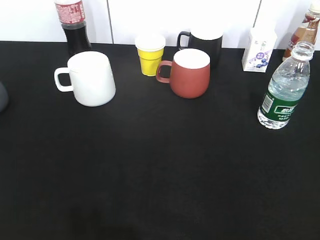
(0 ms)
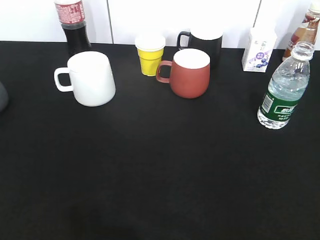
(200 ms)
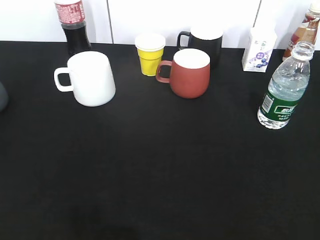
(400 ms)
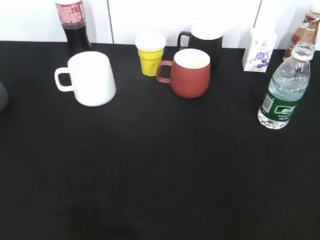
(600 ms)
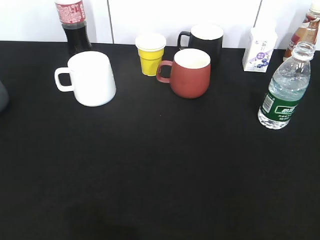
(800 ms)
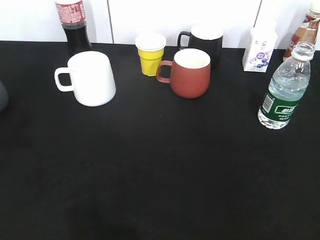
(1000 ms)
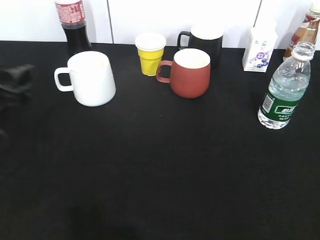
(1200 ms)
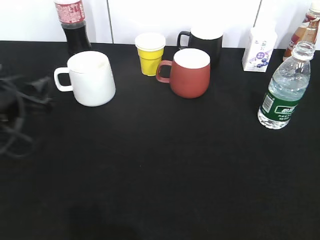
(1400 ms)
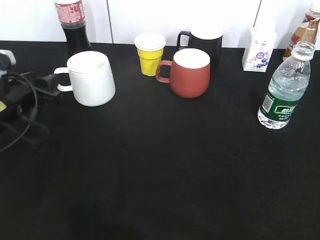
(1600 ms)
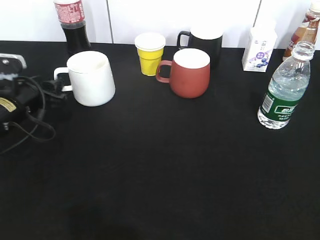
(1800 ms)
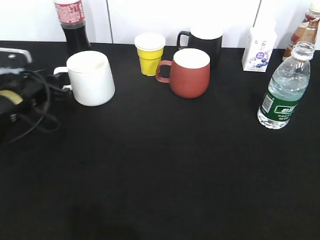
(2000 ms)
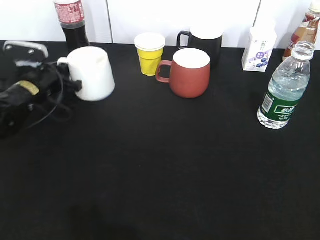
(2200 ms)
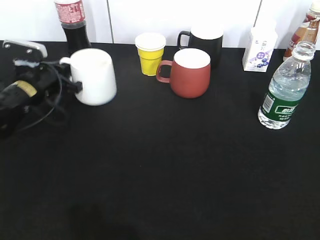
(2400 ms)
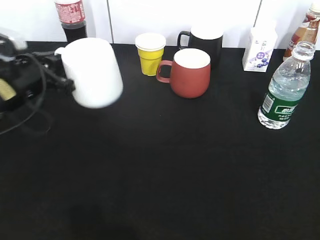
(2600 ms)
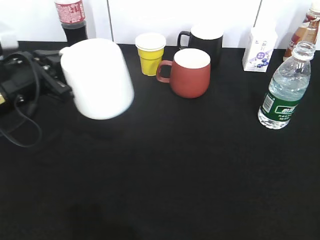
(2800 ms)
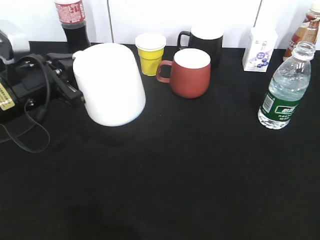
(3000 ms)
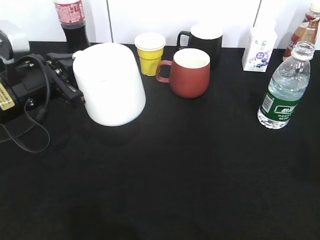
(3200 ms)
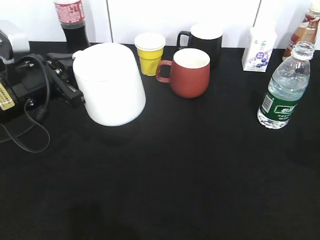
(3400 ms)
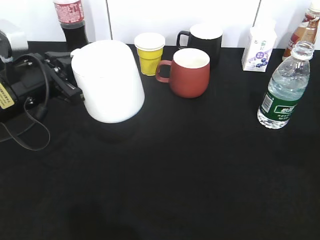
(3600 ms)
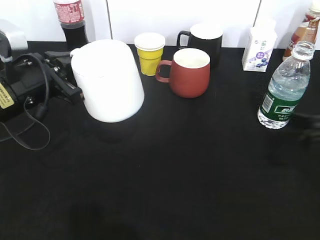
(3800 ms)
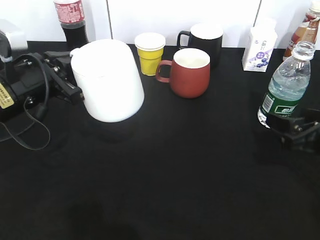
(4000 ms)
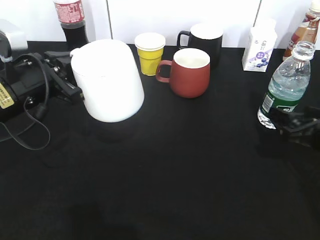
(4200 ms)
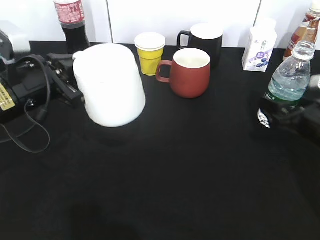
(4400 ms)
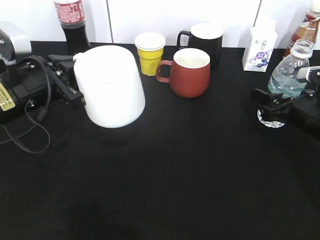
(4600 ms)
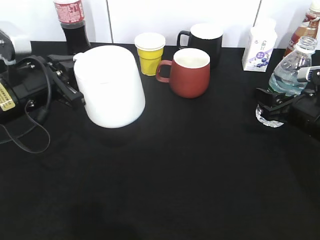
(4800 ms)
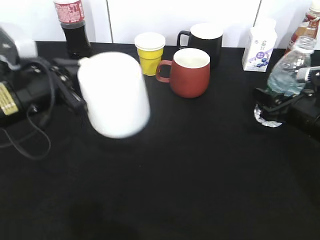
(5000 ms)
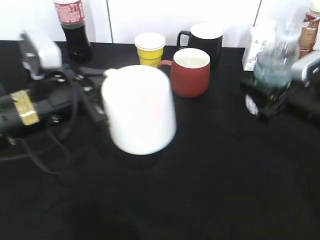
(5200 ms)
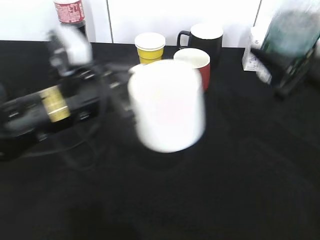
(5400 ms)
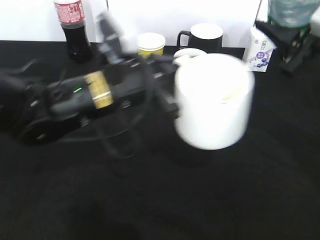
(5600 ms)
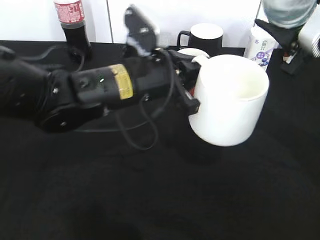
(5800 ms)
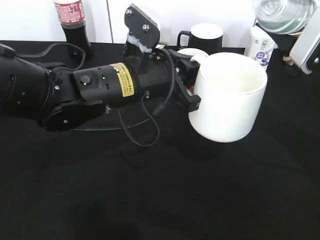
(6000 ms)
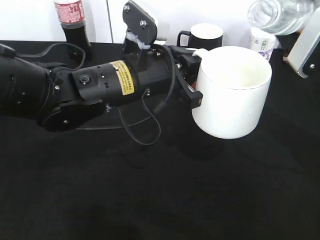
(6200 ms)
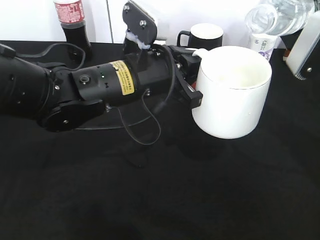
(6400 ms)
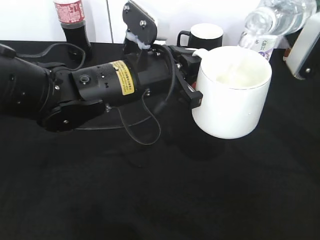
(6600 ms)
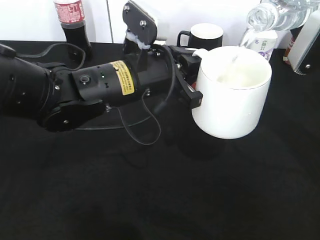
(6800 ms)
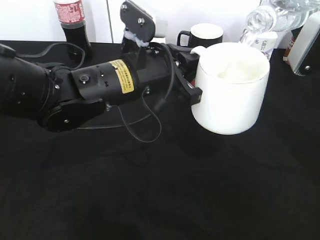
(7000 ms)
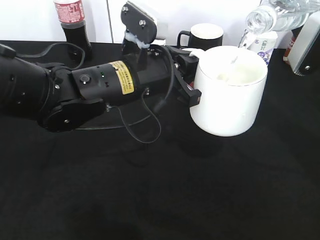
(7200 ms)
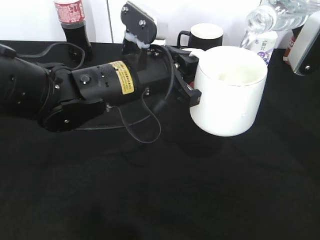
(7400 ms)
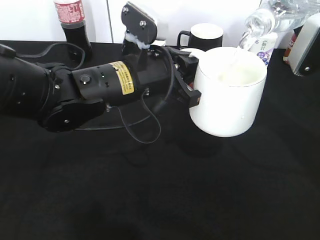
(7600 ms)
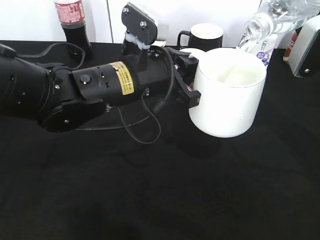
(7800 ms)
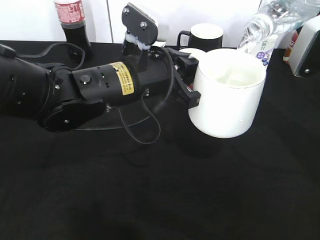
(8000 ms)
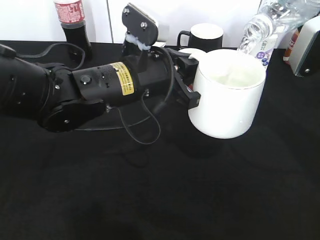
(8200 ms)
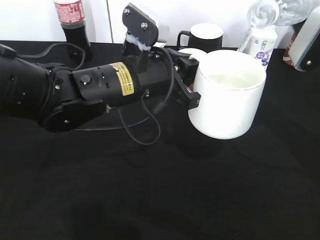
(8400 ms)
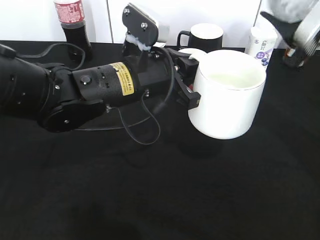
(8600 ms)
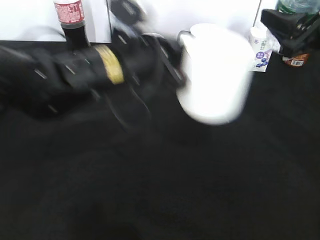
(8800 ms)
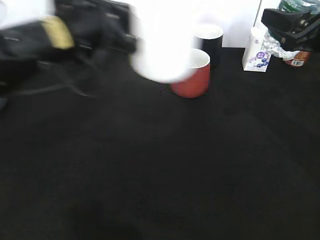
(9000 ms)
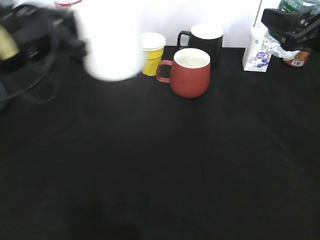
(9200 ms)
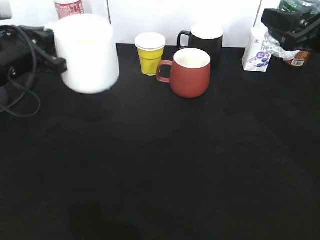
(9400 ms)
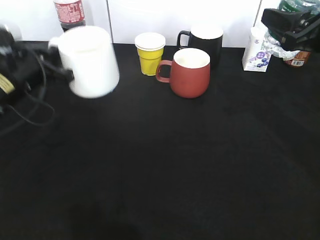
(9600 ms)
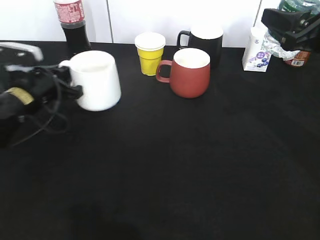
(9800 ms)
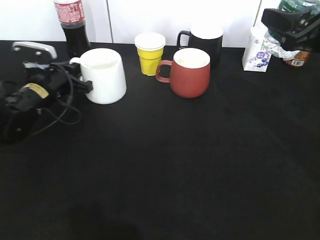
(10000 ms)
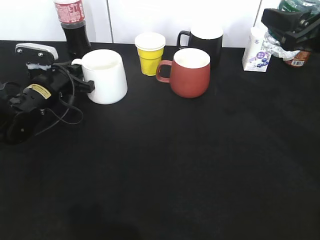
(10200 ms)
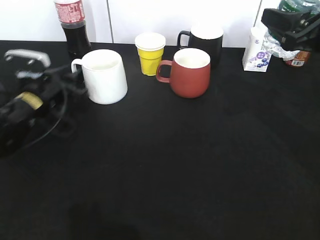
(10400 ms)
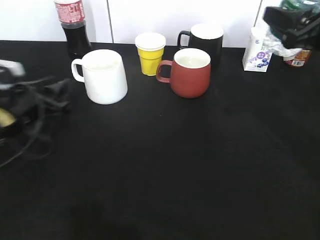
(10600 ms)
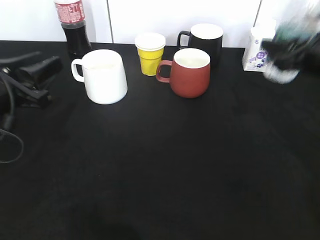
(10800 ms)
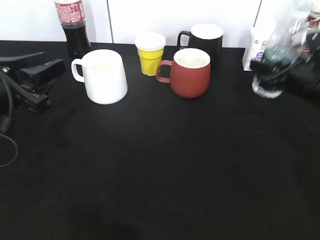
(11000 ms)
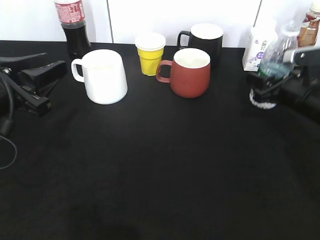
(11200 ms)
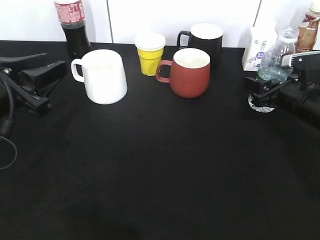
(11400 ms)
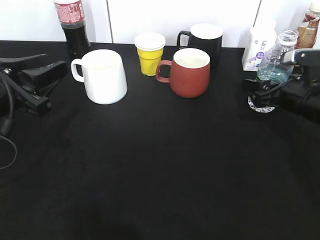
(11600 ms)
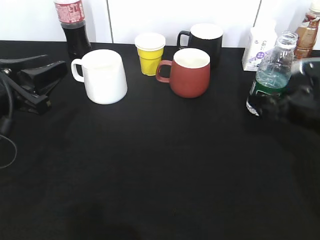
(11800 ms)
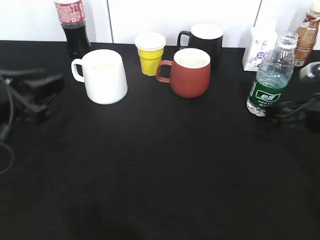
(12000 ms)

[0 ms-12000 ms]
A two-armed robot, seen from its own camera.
Step, 600 ms to 2200 ms: Grasp the white cup with left gripper.
Step, 2400 ms to 2800 ms: Lift the white cup with left gripper.
Step, 3000 ms to 4800 ms: Grasp the bottle with water with right gripper.
Step, 5000 ms to 8800 ms: Pour the water from bottle to cup with right gripper.
Step, 9000 ms to 10400 ms: Place the white cup on the table with left gripper.
Step, 10600 ms to 11800 ms: Place the water bottle on the table with right gripper.
0 ms to 1600 ms: The left gripper goes some 35 cm forward and downward.
1600 ms to 3000 ms: The left gripper moves to the right, roughly 5 cm, reaches approximately 10 cm forward, then returns, and closes up.
3000 ms to 4400 ms: The right gripper travels forward and downward by about 30 cm, and opens.
4400 ms to 6000 ms: The left gripper heads to the right, covering about 15 cm. Meanwhile the right gripper travels upward by some 15 cm, and closes up.
7600 ms to 9000 ms: The left gripper is displaced to the left and upward by approximately 10 cm.
9000 ms to 10400 ms: The left gripper shifts about 20 cm downward and to the left, and opens.
10400 ms to 12000 ms: The right gripper travels downward by approximately 10 cm, and opens its fingers. Meanwhile the left gripper moves backward and upward, approximately 15 cm.

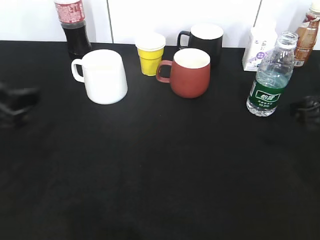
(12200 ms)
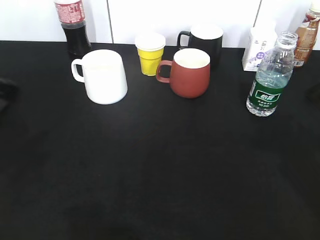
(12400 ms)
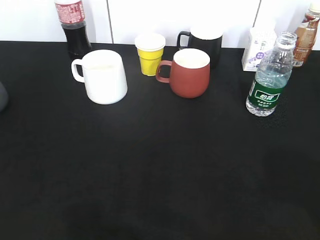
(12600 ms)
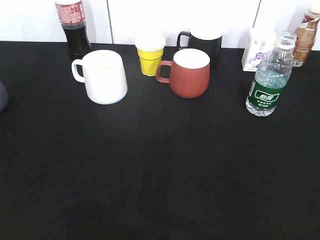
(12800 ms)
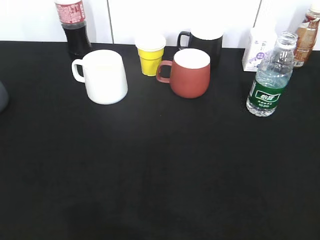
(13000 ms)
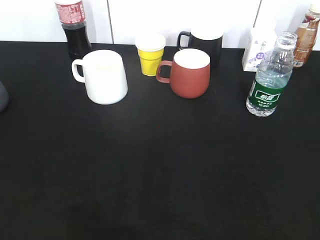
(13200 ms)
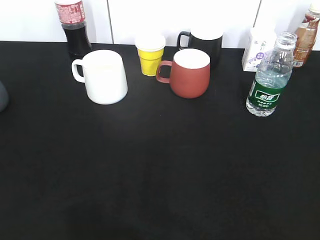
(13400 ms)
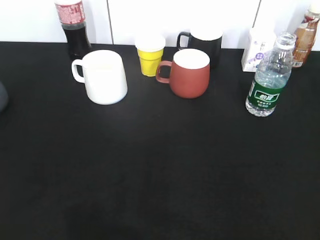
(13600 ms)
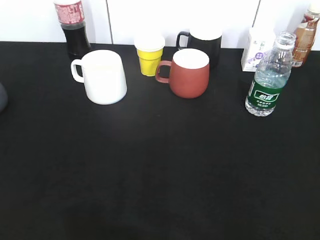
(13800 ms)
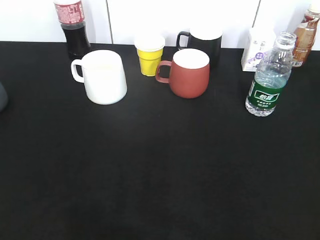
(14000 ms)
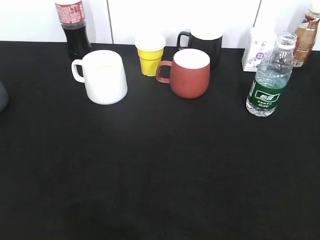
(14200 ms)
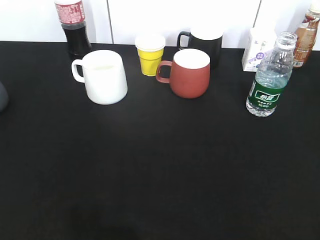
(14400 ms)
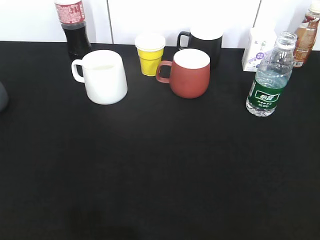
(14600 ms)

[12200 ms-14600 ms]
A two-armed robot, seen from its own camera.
12200 ms to 13400 ms: The grippers both shift backward by approximately 20 cm.

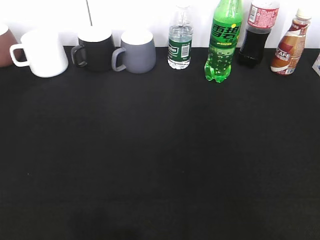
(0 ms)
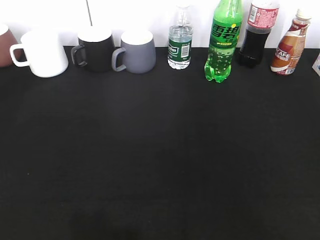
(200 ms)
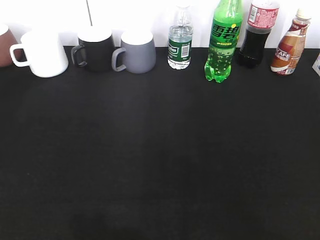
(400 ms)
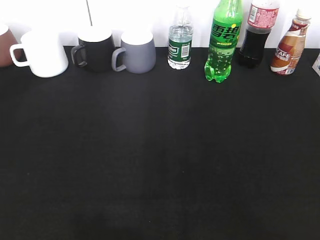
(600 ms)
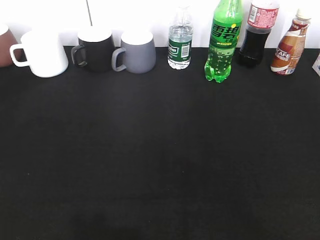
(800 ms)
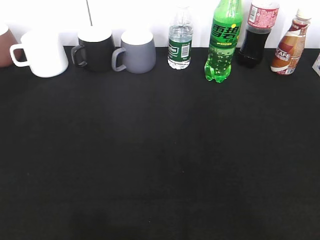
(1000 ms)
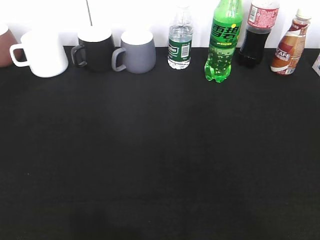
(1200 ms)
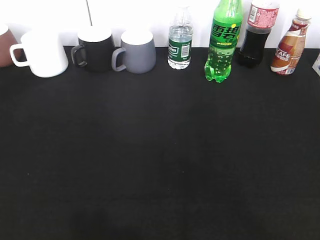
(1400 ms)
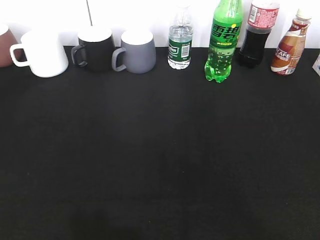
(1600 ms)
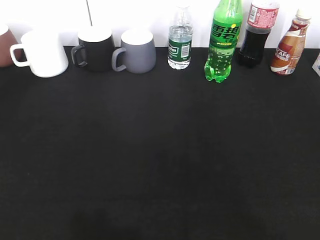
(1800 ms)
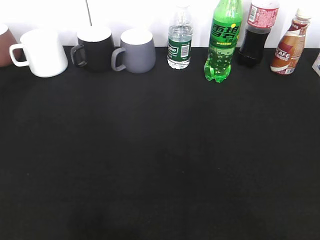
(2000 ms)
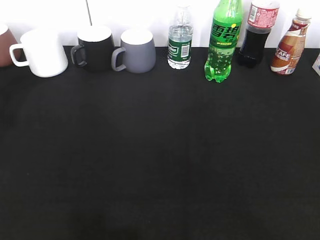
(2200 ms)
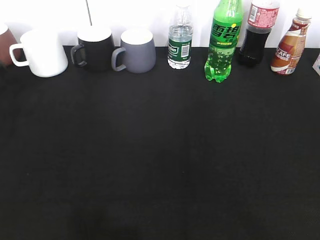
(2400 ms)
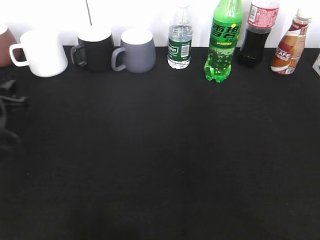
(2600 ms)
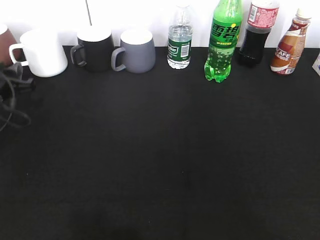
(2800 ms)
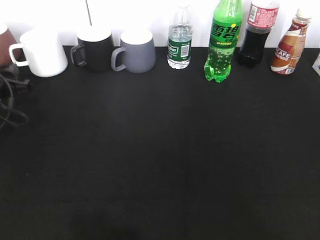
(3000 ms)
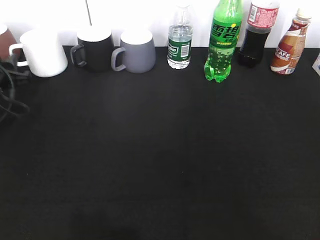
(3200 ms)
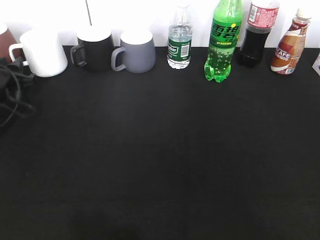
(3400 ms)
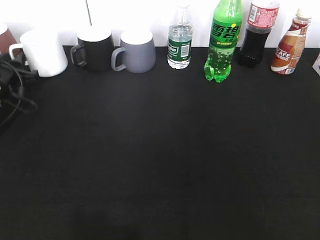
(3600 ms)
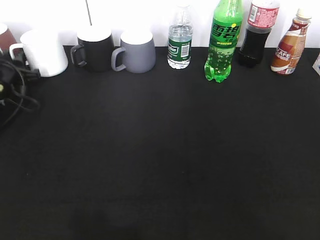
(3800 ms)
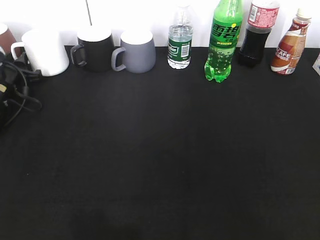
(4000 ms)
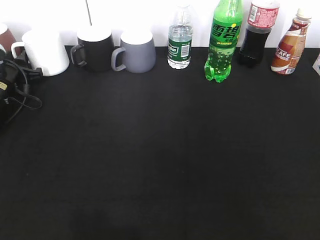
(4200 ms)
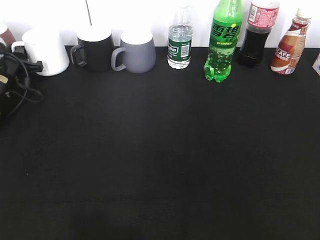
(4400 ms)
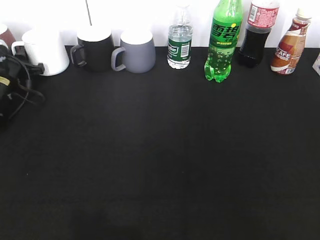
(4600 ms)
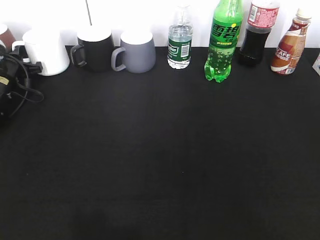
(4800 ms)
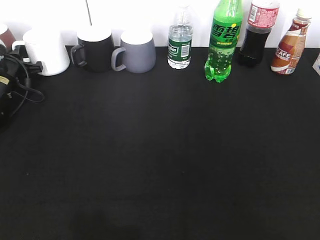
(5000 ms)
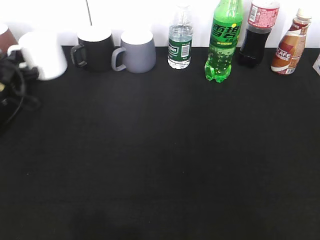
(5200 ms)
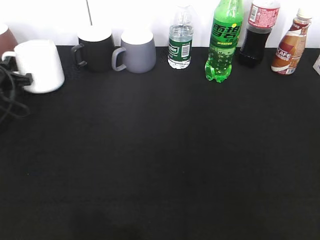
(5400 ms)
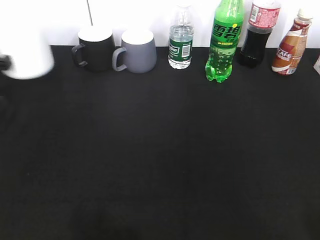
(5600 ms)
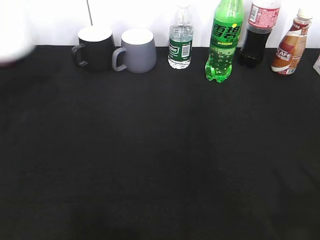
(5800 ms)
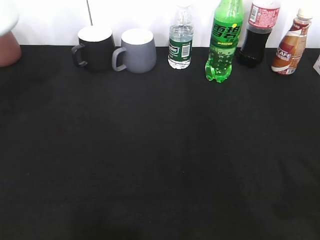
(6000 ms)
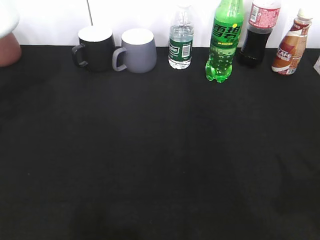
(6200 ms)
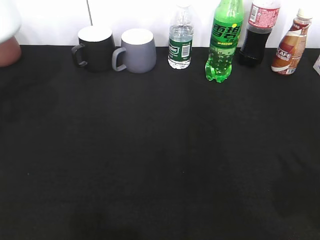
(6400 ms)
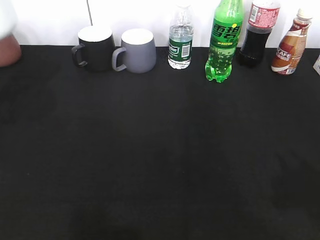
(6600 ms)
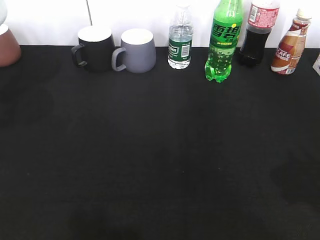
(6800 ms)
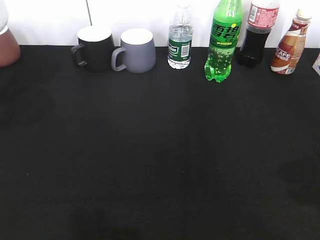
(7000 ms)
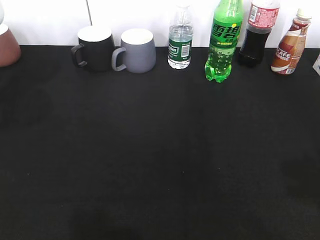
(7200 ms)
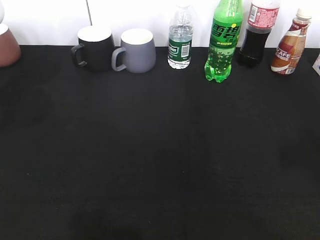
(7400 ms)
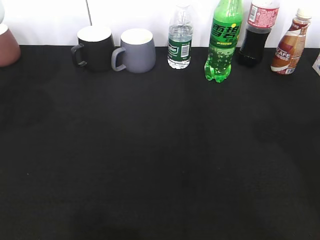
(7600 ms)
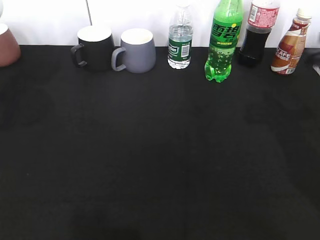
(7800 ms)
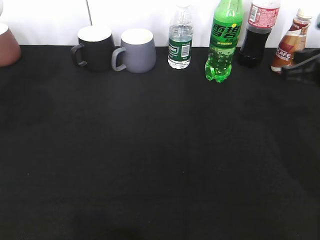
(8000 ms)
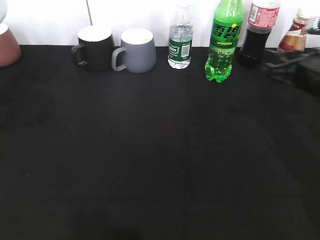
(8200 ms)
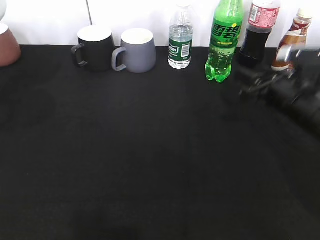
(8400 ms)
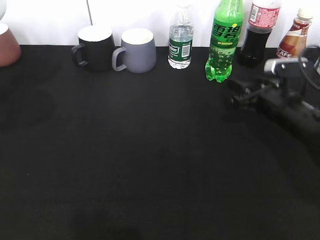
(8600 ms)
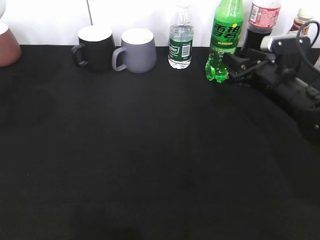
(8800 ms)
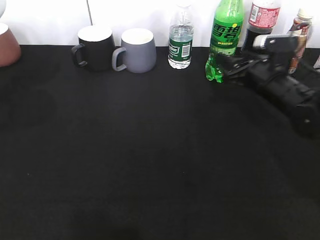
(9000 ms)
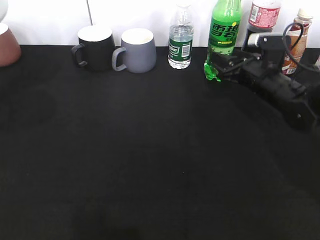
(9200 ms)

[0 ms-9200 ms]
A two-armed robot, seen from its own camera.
Step, 0 ms to 4600 ms: Grasp the white cup with left gripper.
Step, 4800 ms to 5400 ms: Lift the white cup with left gripper.
1600 ms to 3000 ms: The left gripper goes about 40 cm forward and downward.
3000 ms to 4600 ms: The left gripper goes approximately 10 cm forward.
4600 ms to 6200 ms: The left gripper is displaced backward and upward by roughly 30 cm, and closes its fingers, while the right gripper travels forward by roughly 10 cm.
6200 ms to 7600 ms: The right gripper heads forward, covering about 10 cm, and closes.
7600 ms to 9200 ms: The right gripper shifts roughly 30 cm forward and downward, and opens up.
